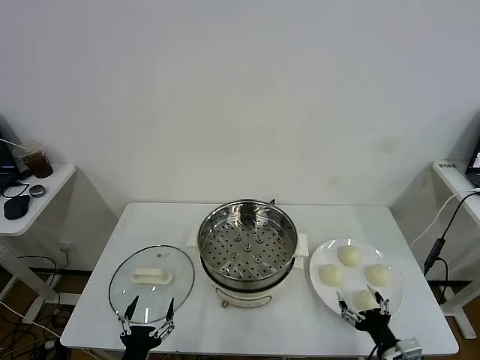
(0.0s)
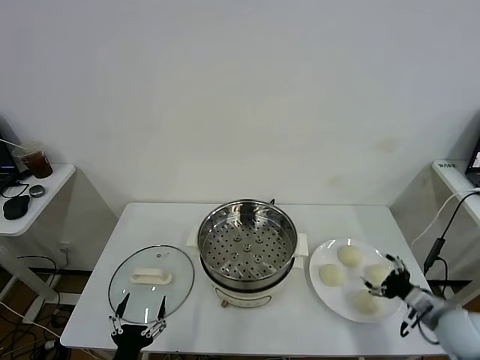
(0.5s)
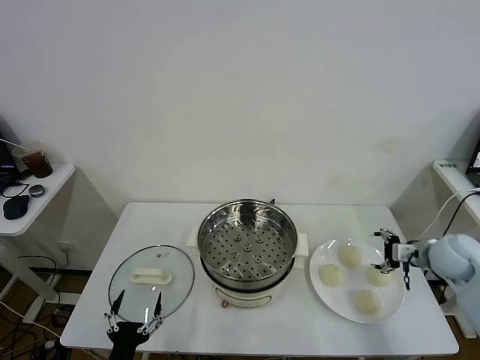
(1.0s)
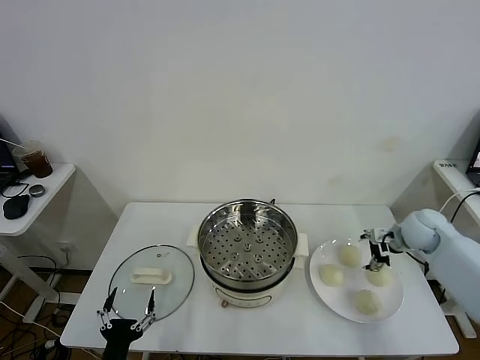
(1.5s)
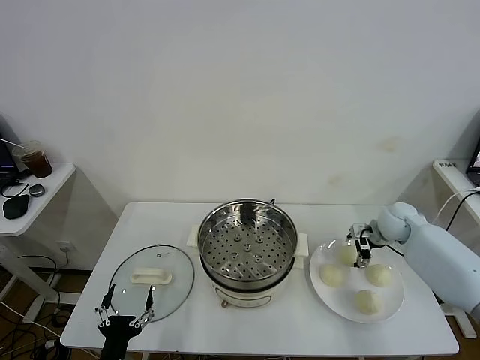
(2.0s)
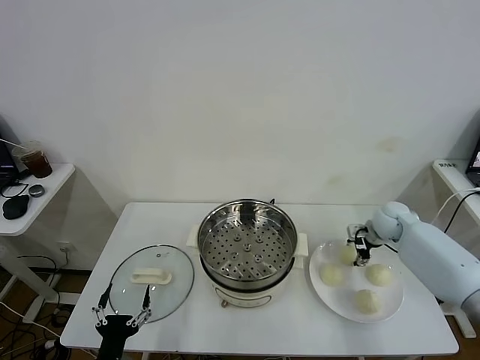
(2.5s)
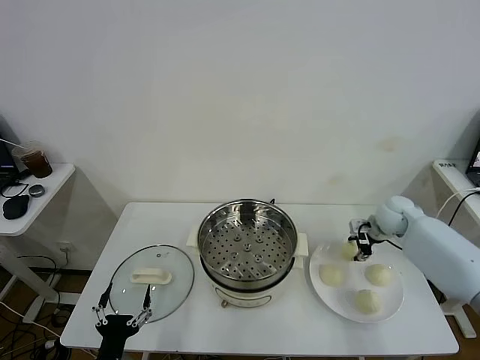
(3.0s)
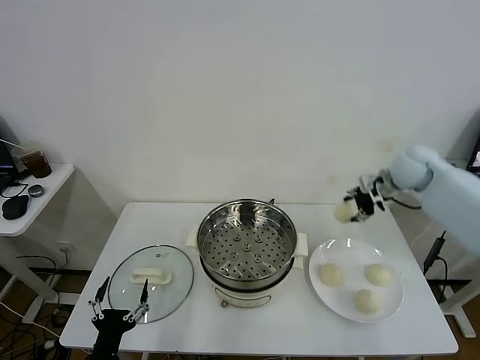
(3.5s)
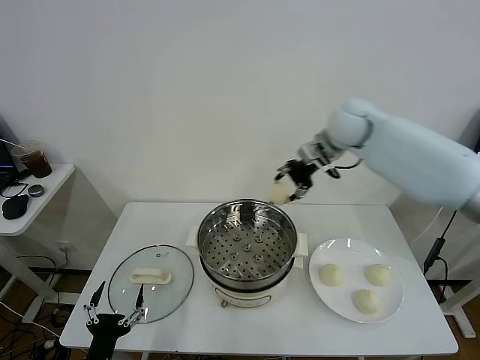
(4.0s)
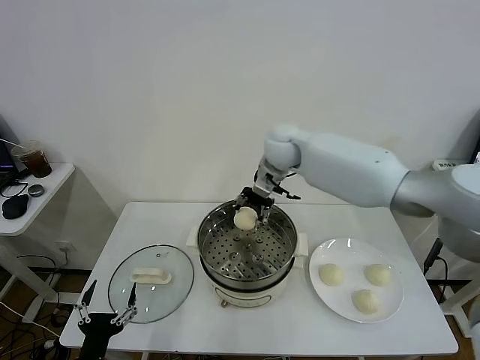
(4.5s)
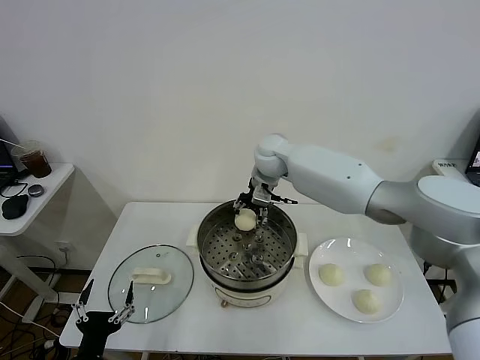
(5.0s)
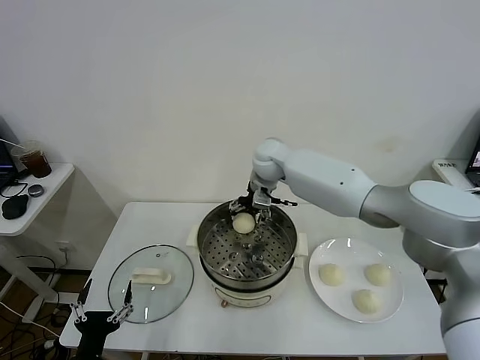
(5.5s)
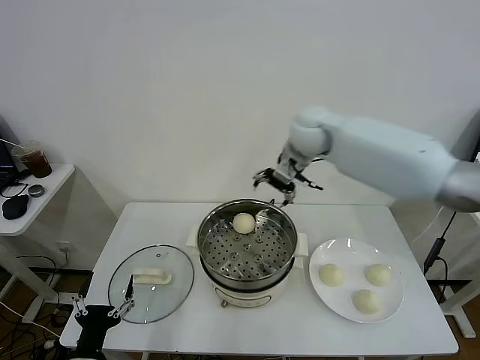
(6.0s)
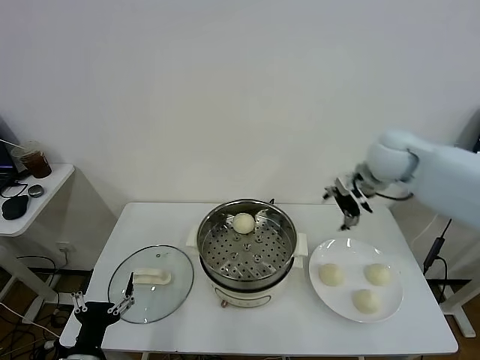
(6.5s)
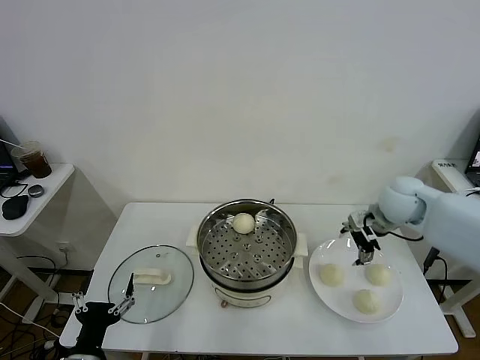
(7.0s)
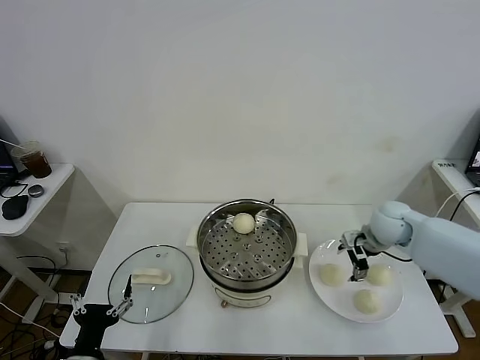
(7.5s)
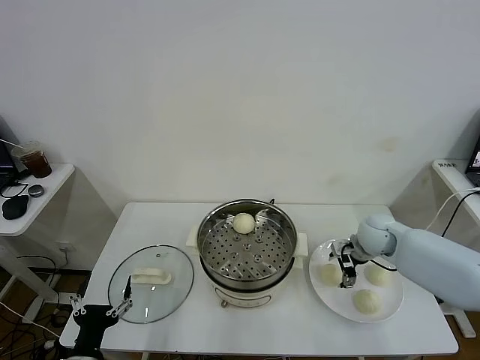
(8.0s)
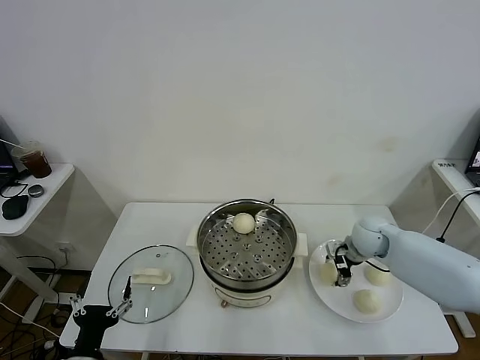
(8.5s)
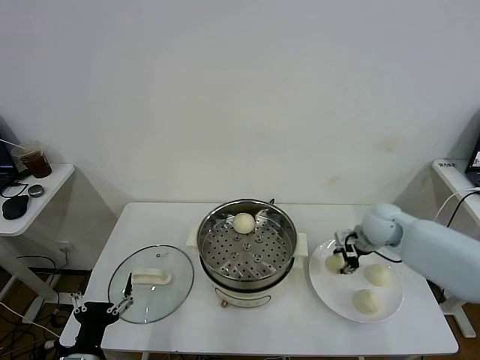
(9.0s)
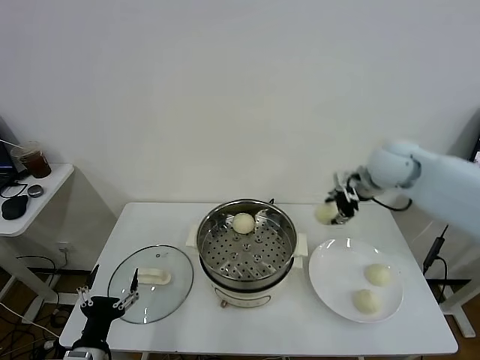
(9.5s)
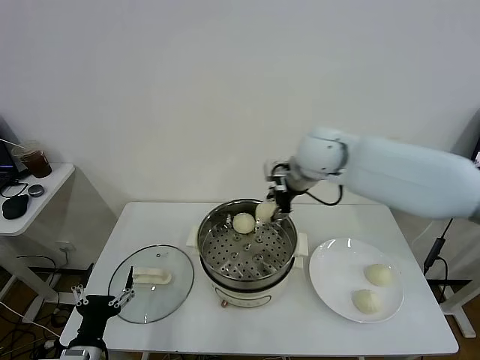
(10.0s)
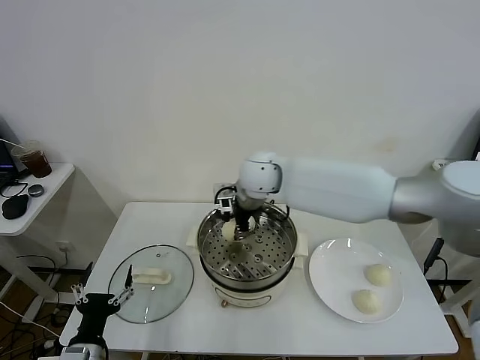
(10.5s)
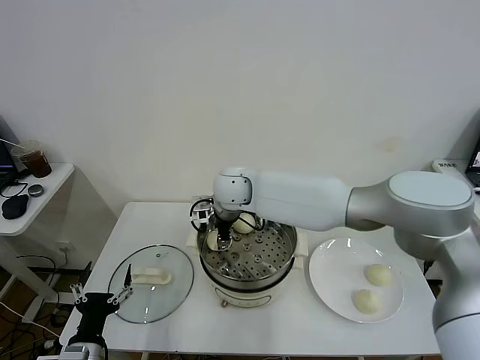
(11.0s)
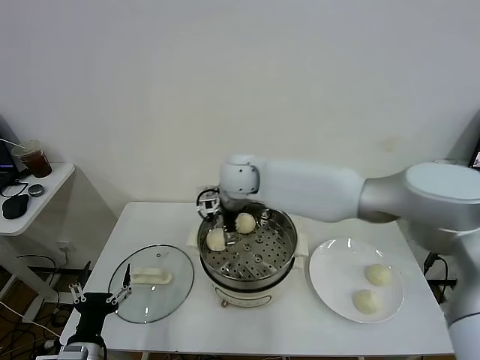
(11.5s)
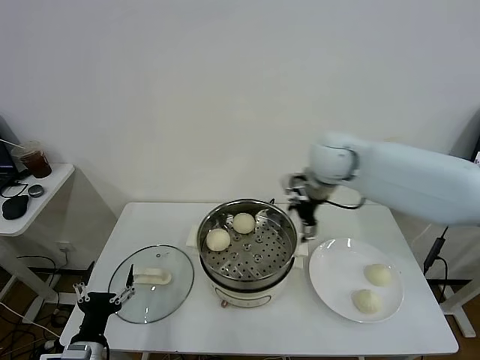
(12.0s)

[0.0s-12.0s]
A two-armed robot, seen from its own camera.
Task of the whole recording: take steamed baozi put them in steamer.
Step, 0.0s to 2.5s: Grasp the baozi in the plate with right gripper.
Step, 3.0s to 5.5s: Place the baozi on the steamer with right gripper.
Step, 6.0s to 8.5s: Grasp the baozi in the plate with right gripper.
Step, 9.0s to 11.0s: Place the baozi on the steamer with right gripper.
2.0s to 4.0s: The right gripper moves upward and to the left, some 30 cm, and closes its fingers.
4.0s to 6.0s: The right gripper goes approximately 5 cm to the left, and opens.
6.0s to 8.0s: The right gripper moves downward, to the right and backward, roughly 30 cm.
8.0s to 10.0s: The right gripper shifts approximately 30 cm upward and to the left, and closes.
10.0s to 12.0s: The right gripper goes to the left and returns, roughly 15 cm each way, and opens up.

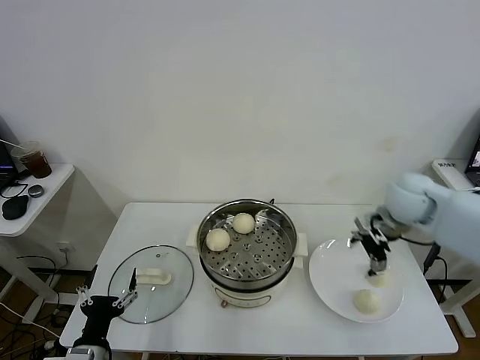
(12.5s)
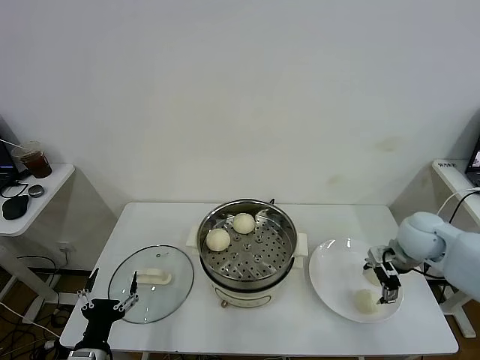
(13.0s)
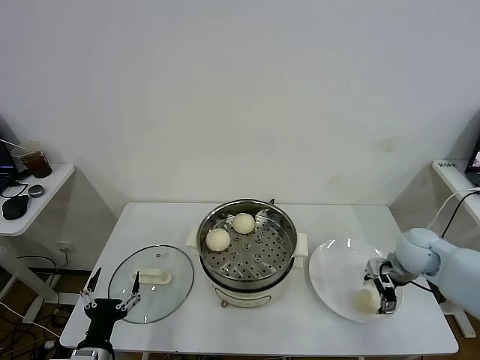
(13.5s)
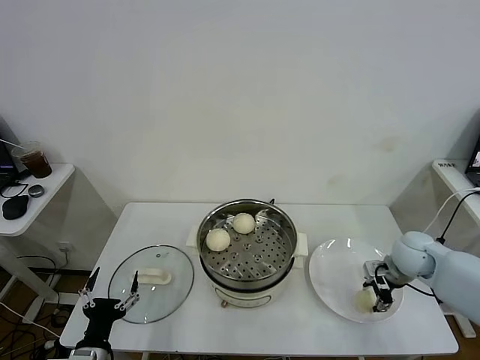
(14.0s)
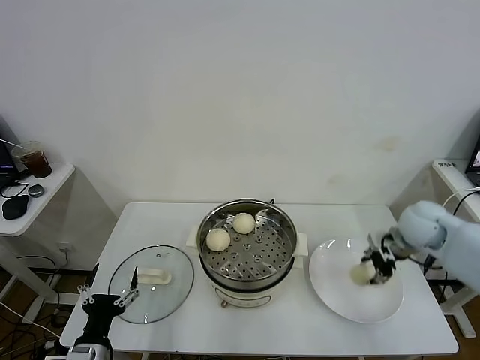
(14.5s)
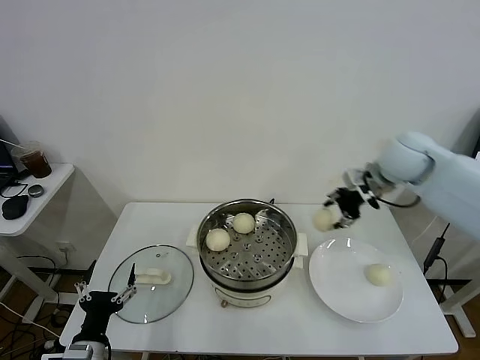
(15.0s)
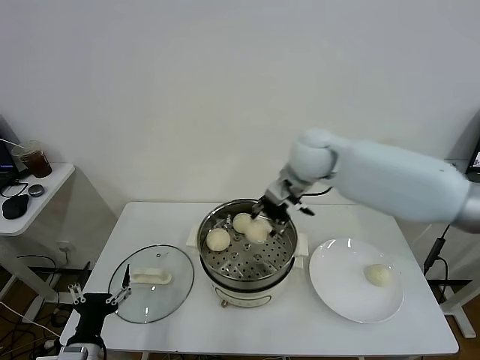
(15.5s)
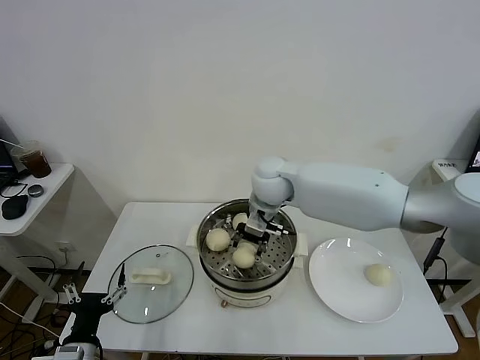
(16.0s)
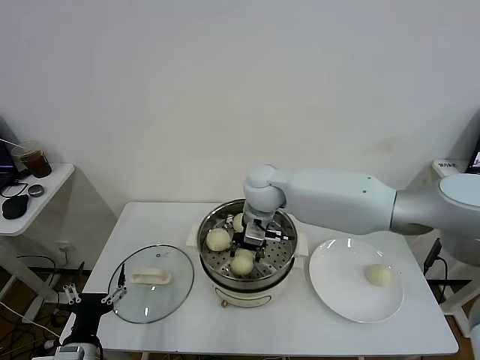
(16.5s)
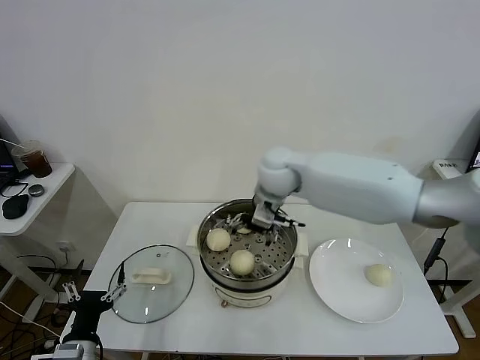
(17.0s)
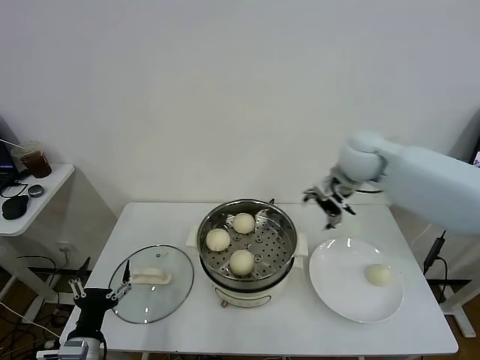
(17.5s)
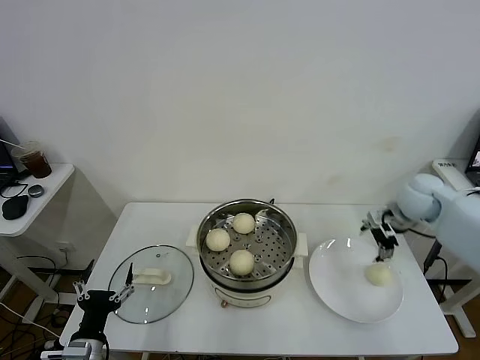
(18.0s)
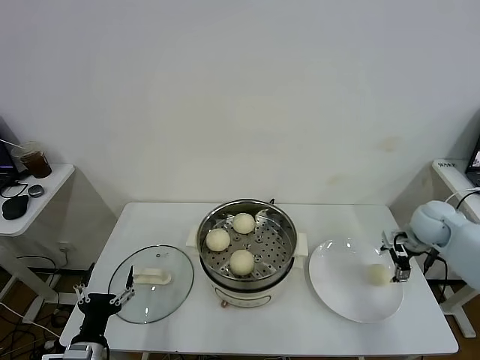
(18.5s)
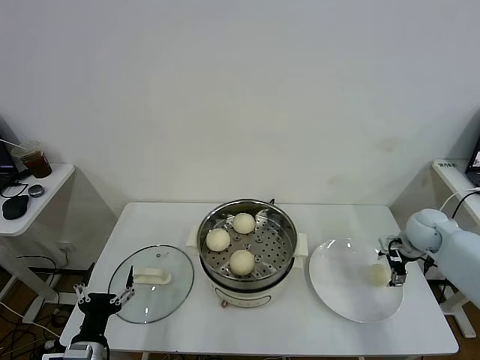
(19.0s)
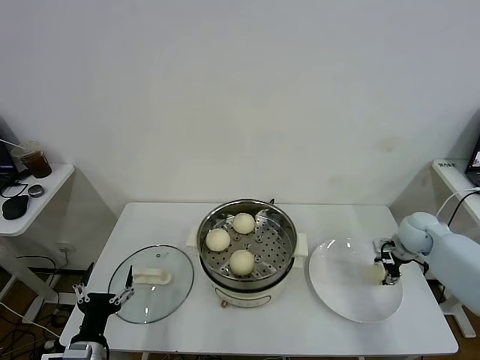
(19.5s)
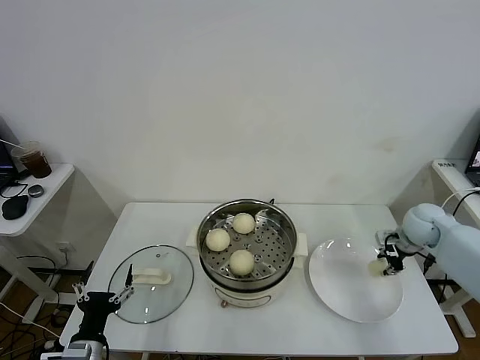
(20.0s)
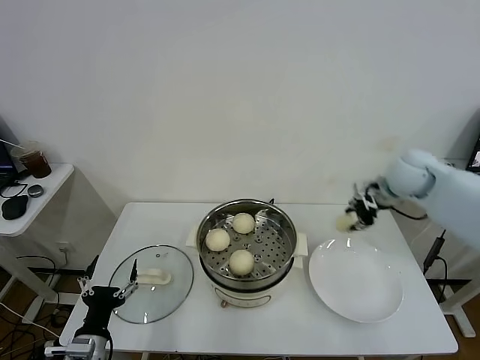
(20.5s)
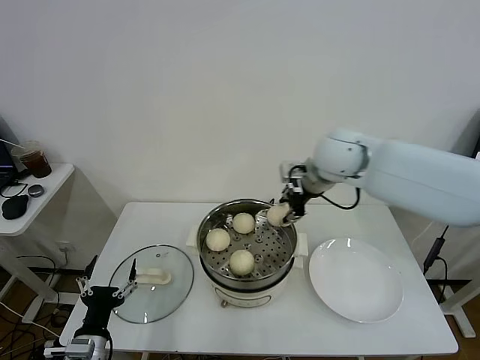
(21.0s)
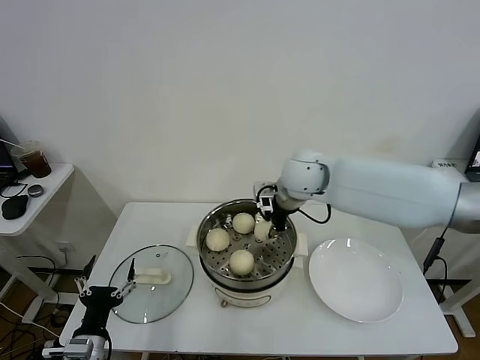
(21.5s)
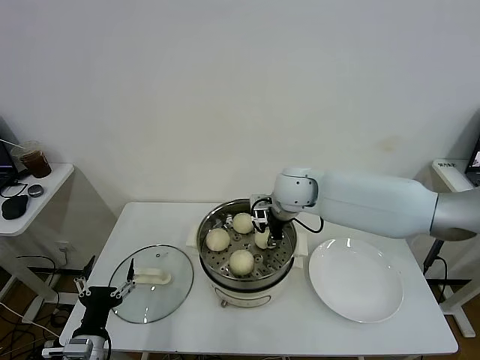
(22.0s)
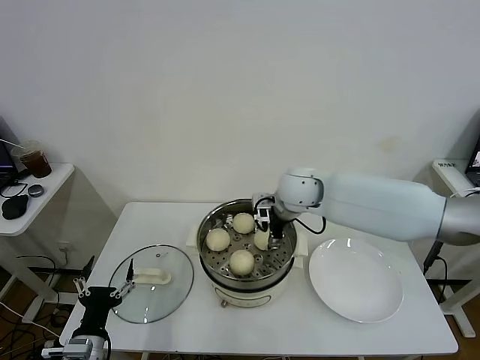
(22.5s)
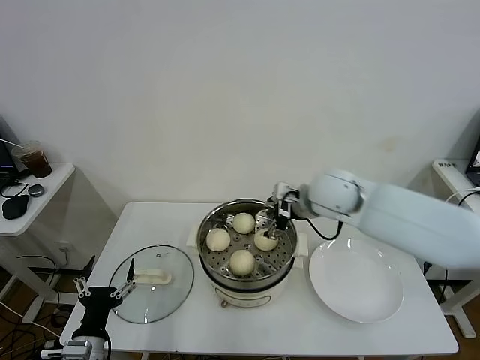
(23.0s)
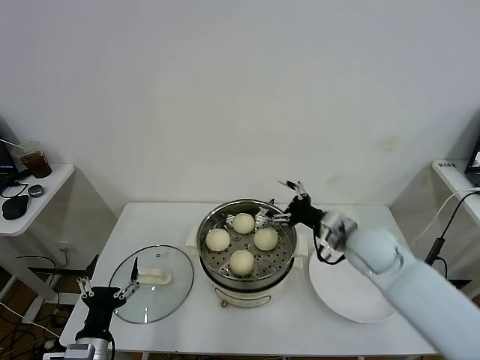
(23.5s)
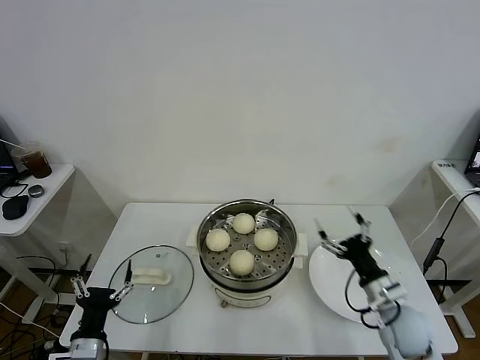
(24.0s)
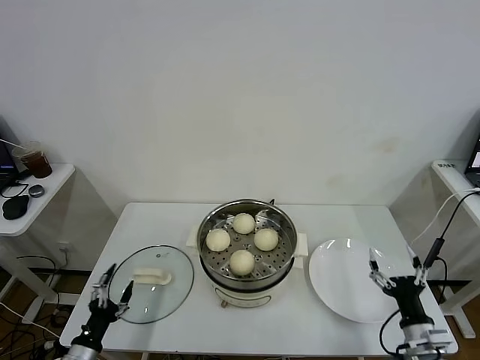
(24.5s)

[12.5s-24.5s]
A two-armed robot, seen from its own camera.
Task of the whole recording: take steamed baozi put them in steamer.
Step, 12.5s to 14.0s: Grasp the baozi in the plate with right gripper.
Step, 14.5s to 16.5s: Place the baozi on the steamer with right gripper.
Step, 17.0s to 19.5s: Grasp the baozi in the plate with right gripper.
Step, 20.0s to 22.5s: Place the baozi on the steamer with right gripper.
12.5s to 14.5s: The right gripper travels downward and to the right by about 10 cm, and closes its fingers.
14.5s to 16.5s: The right gripper shifts about 35 cm to the left.
16.5s to 18.5s: The right gripper heads to the right, covering roughly 40 cm, and opens up.
18.5s to 20.5s: The right gripper goes about 15 cm upward and to the left, and closes its fingers.
20.5s to 22.5s: The right gripper shifts approximately 25 cm to the left, and opens up.
22.5s to 24.5s: The right gripper goes approximately 50 cm backward, to the right and downward. The left gripper goes approximately 10 cm to the left and downward.

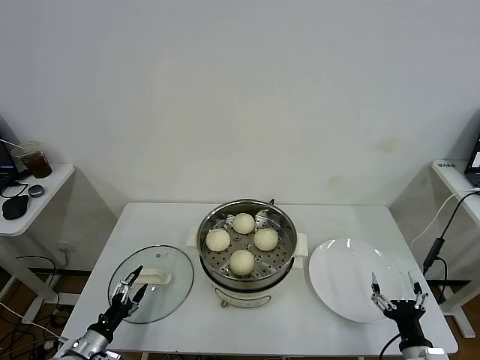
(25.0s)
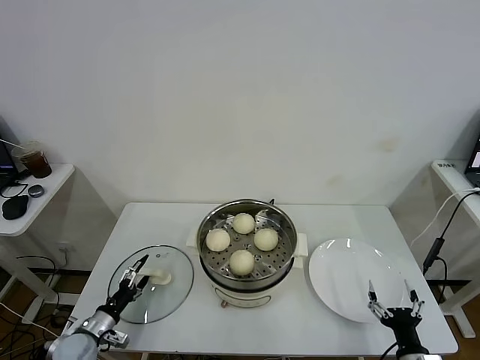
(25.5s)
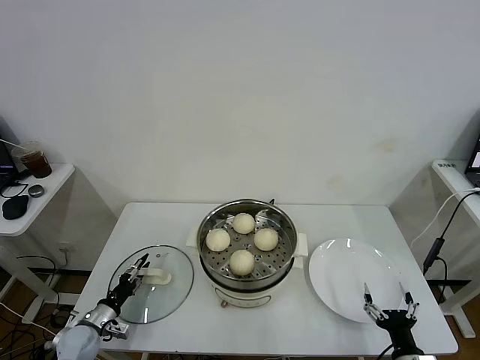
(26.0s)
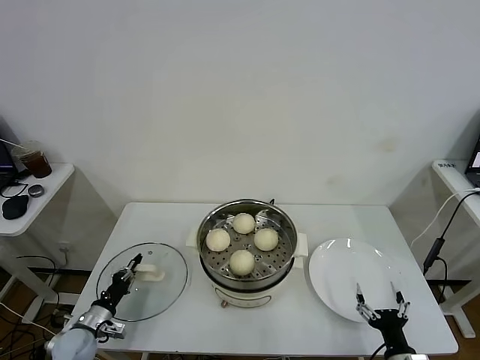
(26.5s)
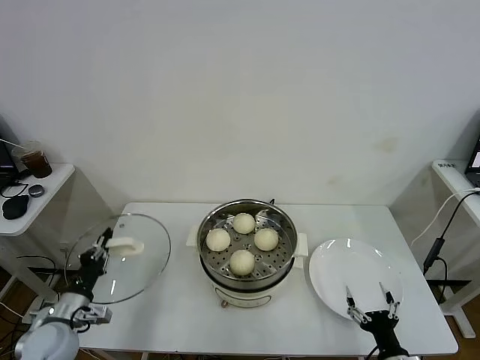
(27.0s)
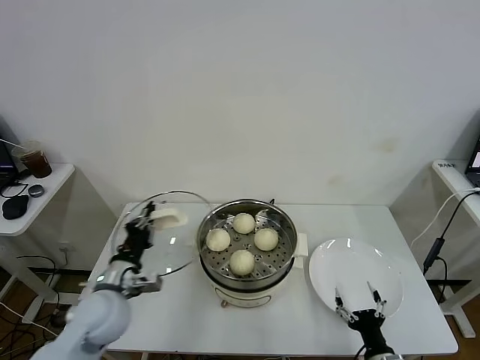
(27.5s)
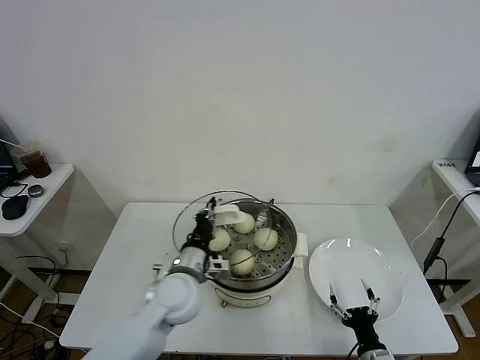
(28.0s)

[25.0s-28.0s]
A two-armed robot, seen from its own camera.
Task of the whole recording: take steamed baozi put them in steamer.
25.0s to 26.5s: The left gripper is displaced forward by roughly 5 cm, and closes up.
26.5s to 28.0s: The right gripper changes place by some 5 cm; the left gripper travels to the right and upward by some 35 cm.
